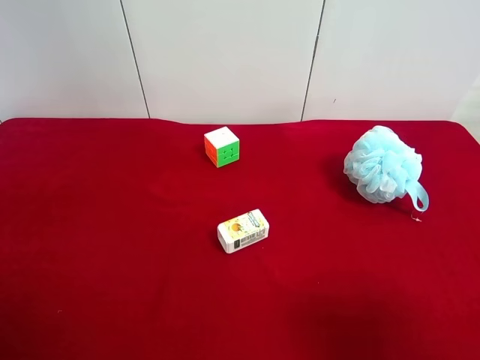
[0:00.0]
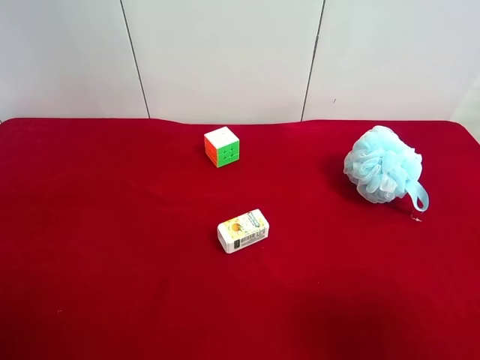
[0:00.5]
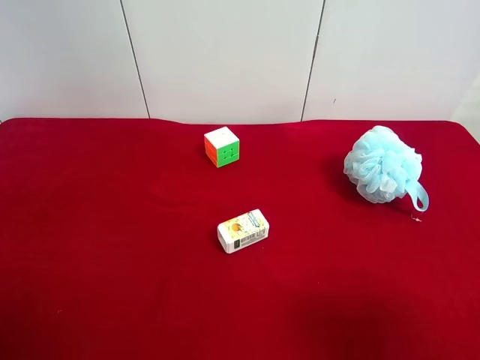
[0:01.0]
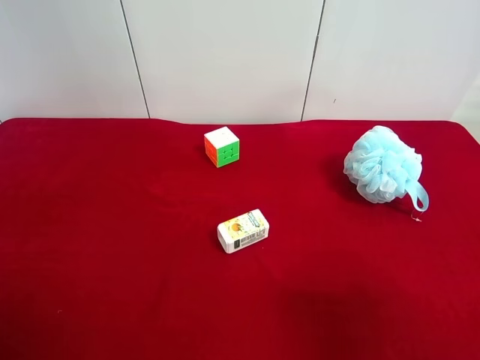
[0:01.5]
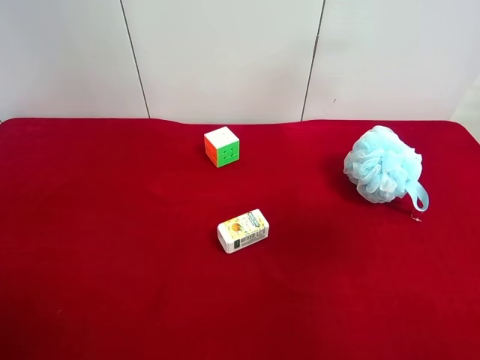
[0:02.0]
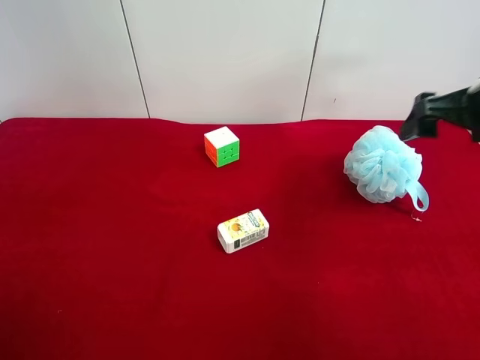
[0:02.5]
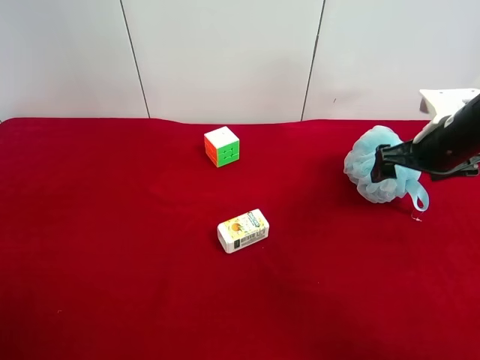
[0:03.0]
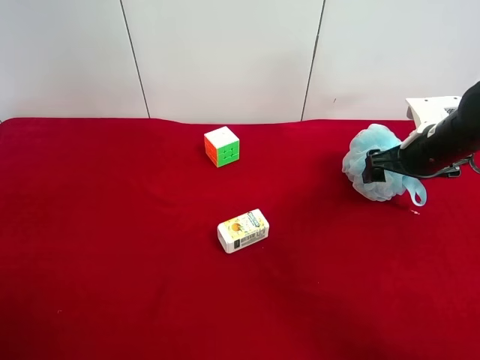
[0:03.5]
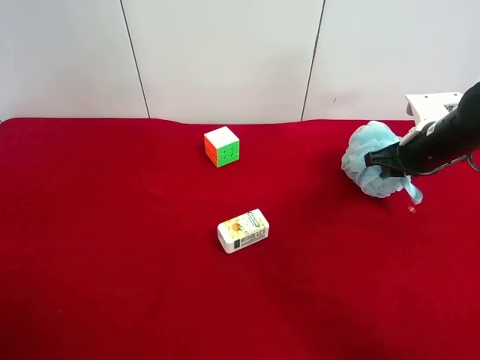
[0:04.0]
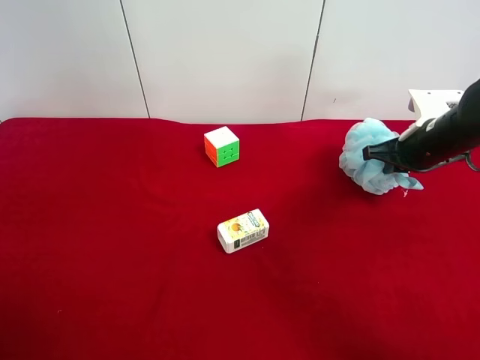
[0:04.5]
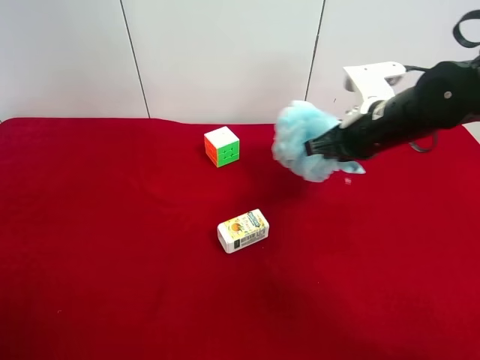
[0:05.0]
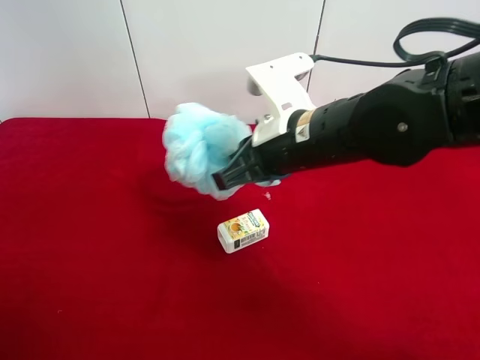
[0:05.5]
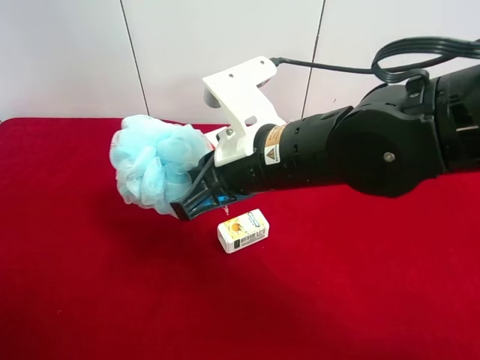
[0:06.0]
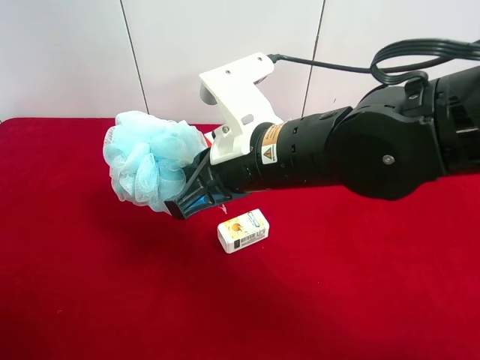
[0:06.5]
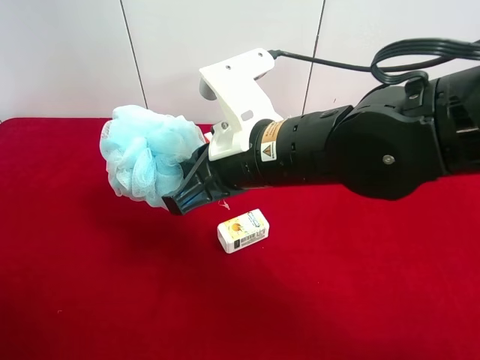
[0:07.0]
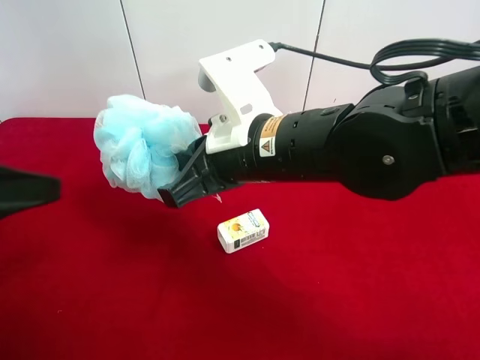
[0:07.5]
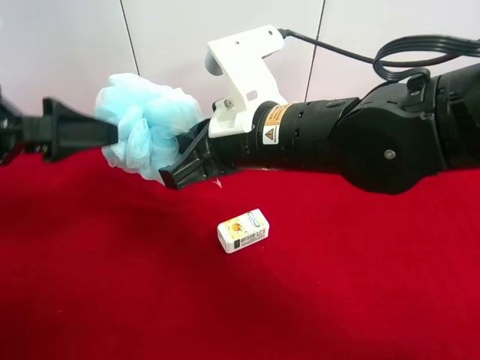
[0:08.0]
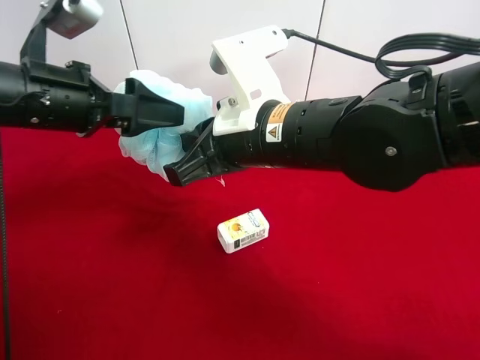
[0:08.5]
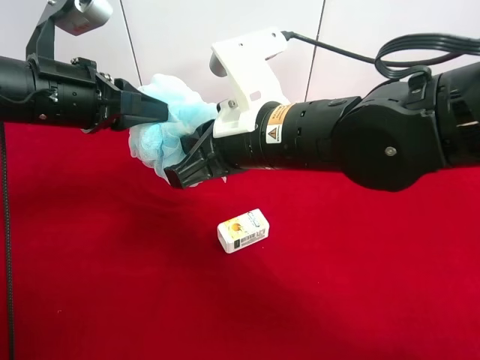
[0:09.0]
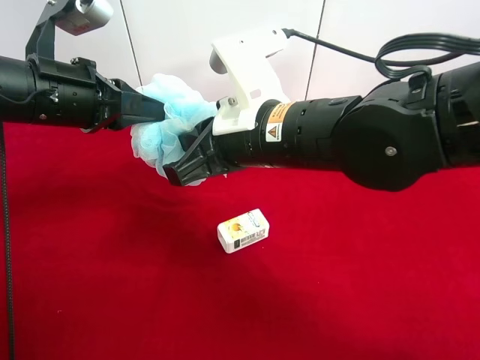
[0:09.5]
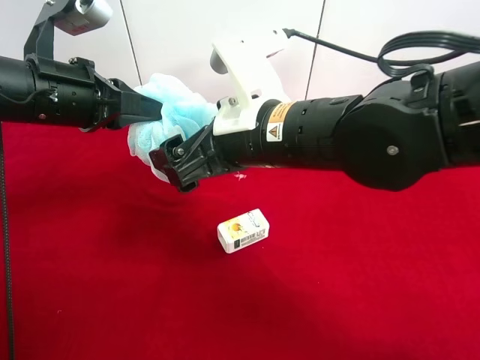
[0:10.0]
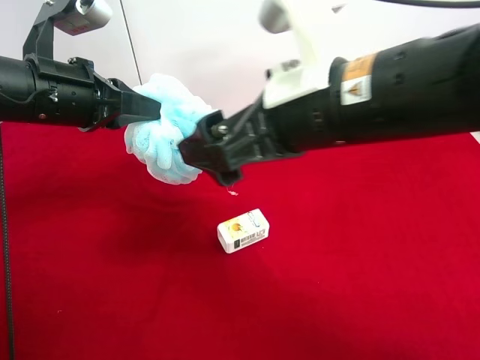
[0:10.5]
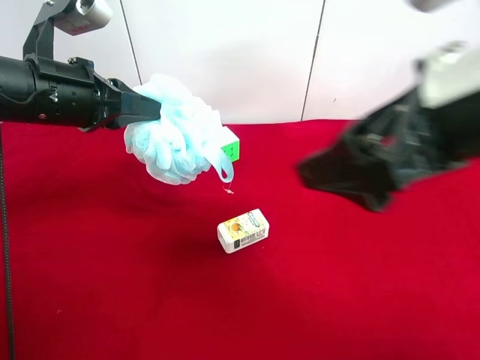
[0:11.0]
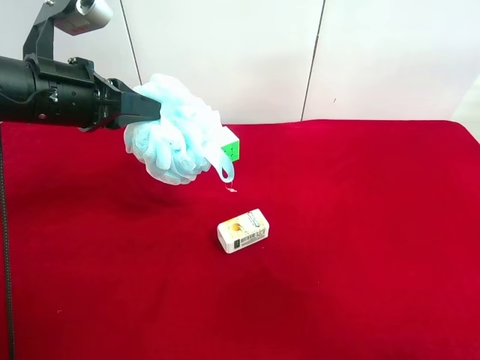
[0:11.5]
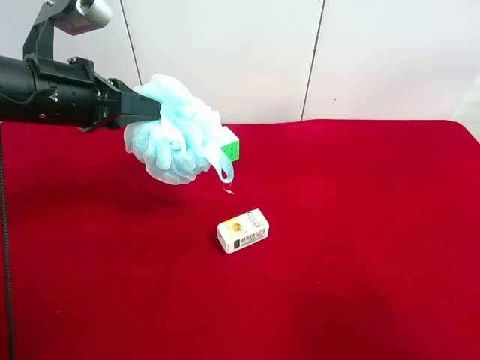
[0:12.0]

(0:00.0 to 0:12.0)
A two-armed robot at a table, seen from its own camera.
Task of the whole recording: use the right gripper to pick up the item and transfer it from the right gripper to the left gripper.
Step, 0:00.0 - 0:04.0: Use the right gripper to grab the shower sphere on the right side of the table.
Step, 0:04.5 - 0:10.0: Pass the shower sphere to the left gripper.
0:02.0 - 0:04.0: The right gripper travels downward and forward by approximately 30 cm, and closes up.
0:04.0 - 0:06.0: The right gripper heads to the left and backward, covering roughly 30 cm.
0:06.0 - 0:08.0: The left gripper is displaced forward by roughly 20 cm.
0:08.0 - 0:10.0: The right gripper opens its fingers; the left gripper moves to the right and forward, approximately 10 cm, and closes up.
0:10.0 - 0:12.0: The right gripper heads to the right and backward, covering approximately 35 cm.

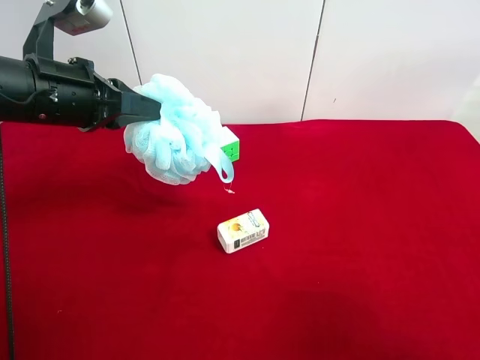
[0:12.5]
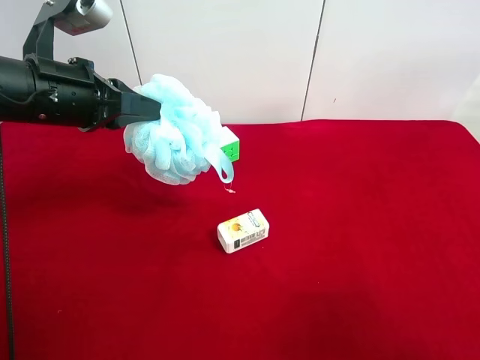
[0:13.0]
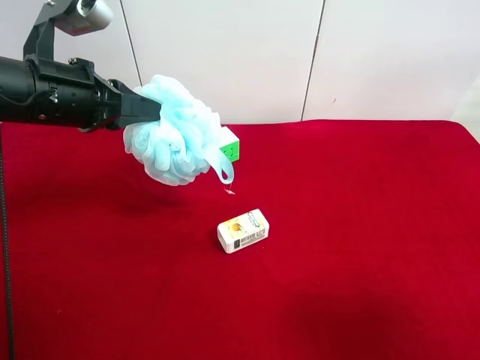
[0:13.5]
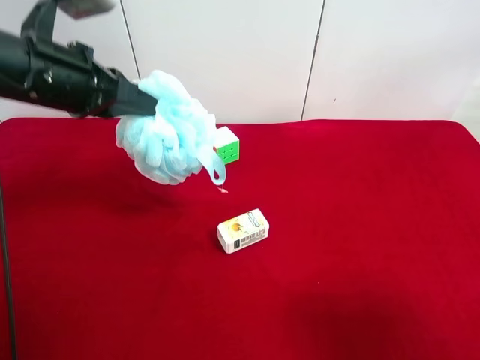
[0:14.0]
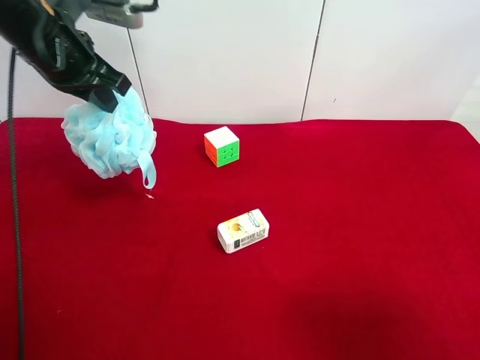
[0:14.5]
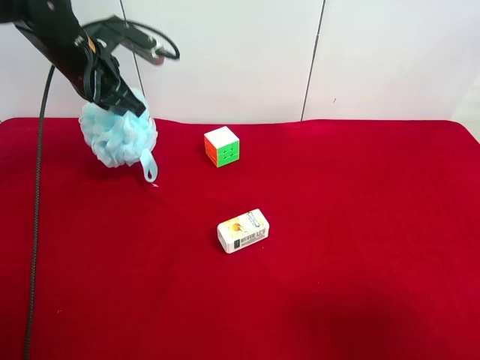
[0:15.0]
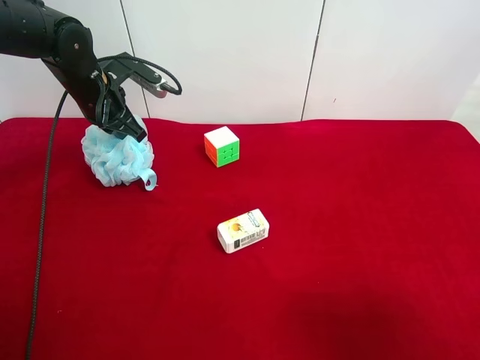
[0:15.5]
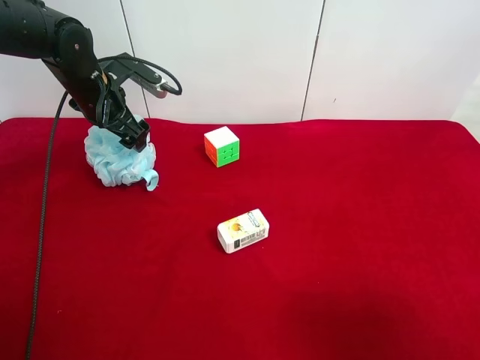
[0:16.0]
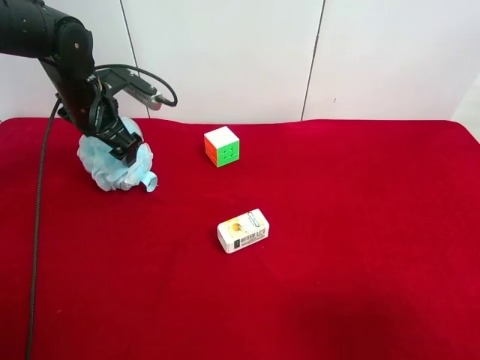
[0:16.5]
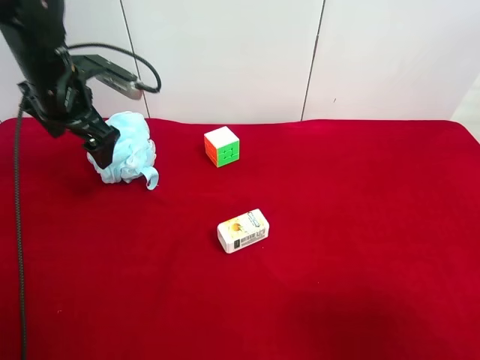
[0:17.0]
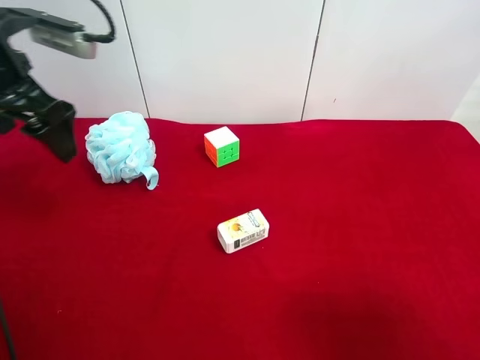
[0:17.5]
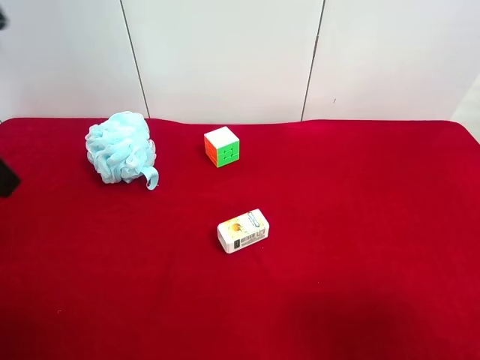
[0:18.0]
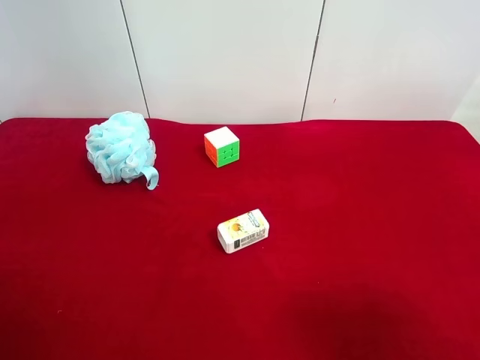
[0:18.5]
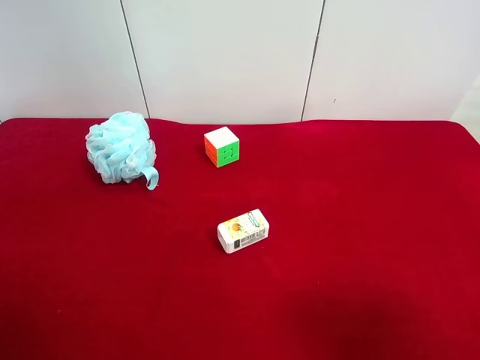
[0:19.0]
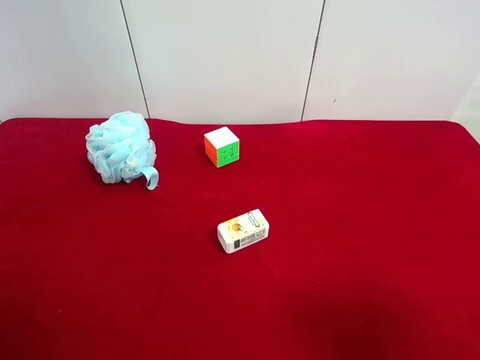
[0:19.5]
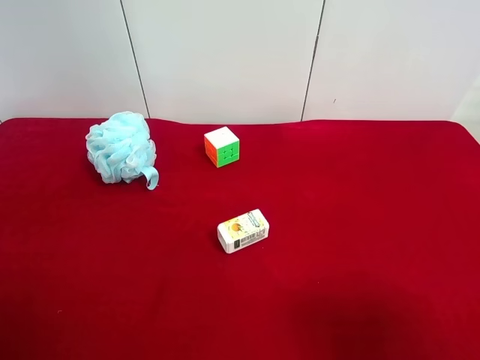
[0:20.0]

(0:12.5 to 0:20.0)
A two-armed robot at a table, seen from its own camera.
Task of the whole recording: use the right gripper to pick up the item and transfer it from the right gripper to the left gripper.
Step, 0:12.5 - 0:16.0: The left gripper places shower sphere on the left side of the table.
0:12.5 - 0:14.5: The left gripper moves forward, approximately 10 cm.
0:14.5 - 0:16.5: The left gripper travels downward by about 10 cm, and opens.
0:16.5 - 0:18.0: The left gripper moves backward and upward, roughly 25 cm.
